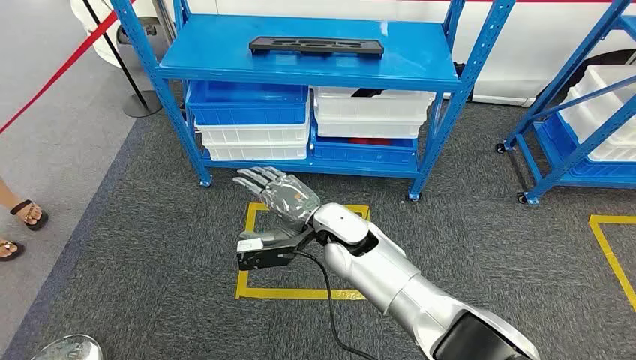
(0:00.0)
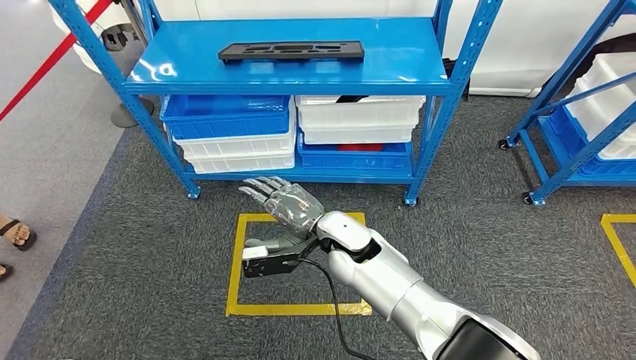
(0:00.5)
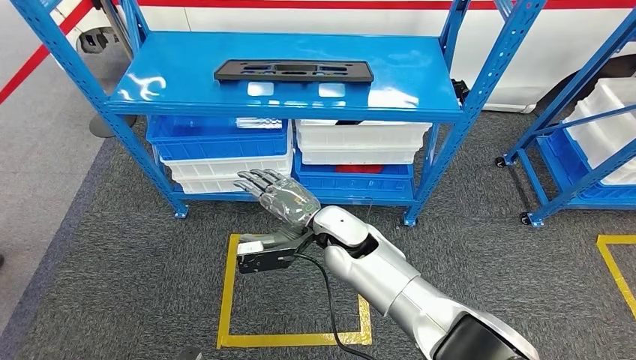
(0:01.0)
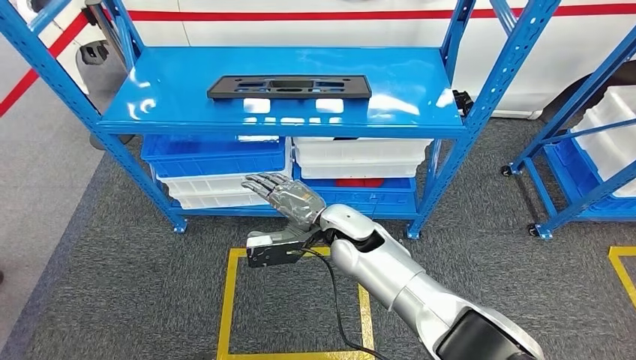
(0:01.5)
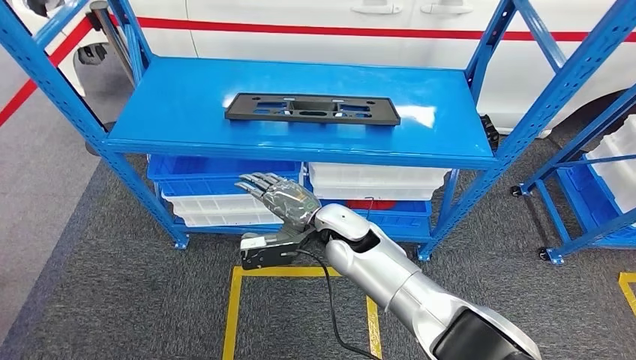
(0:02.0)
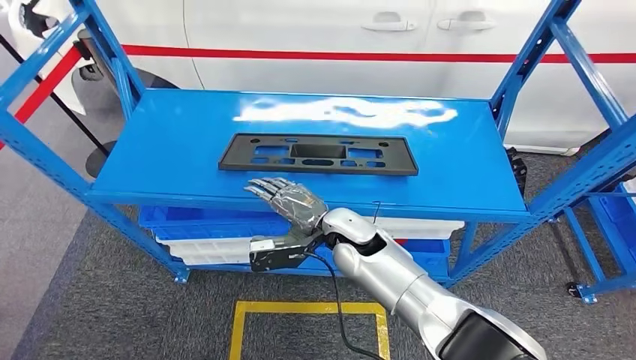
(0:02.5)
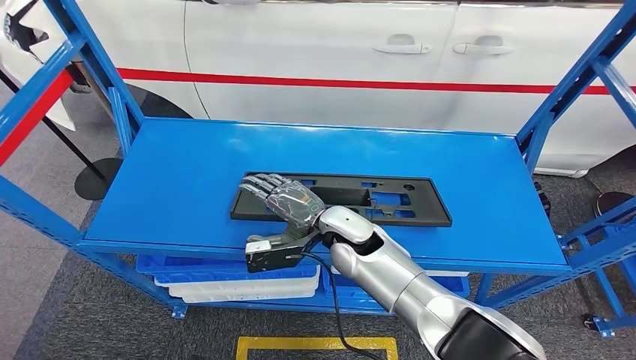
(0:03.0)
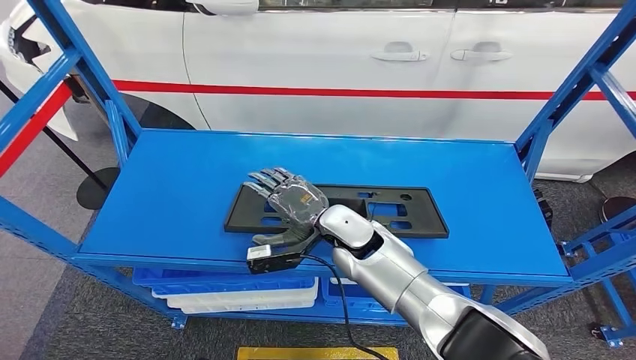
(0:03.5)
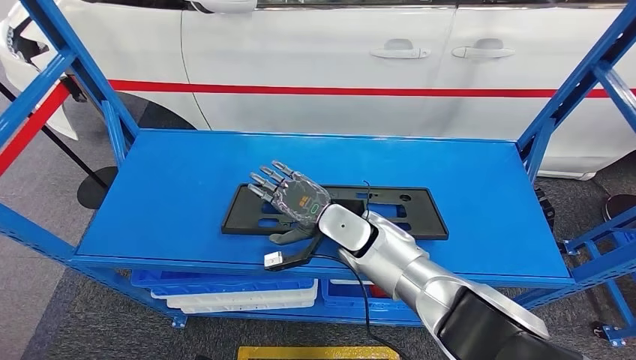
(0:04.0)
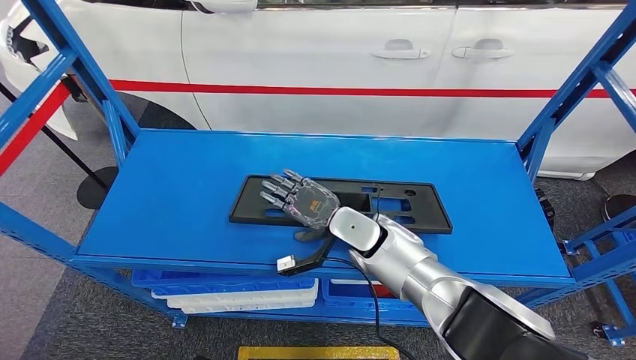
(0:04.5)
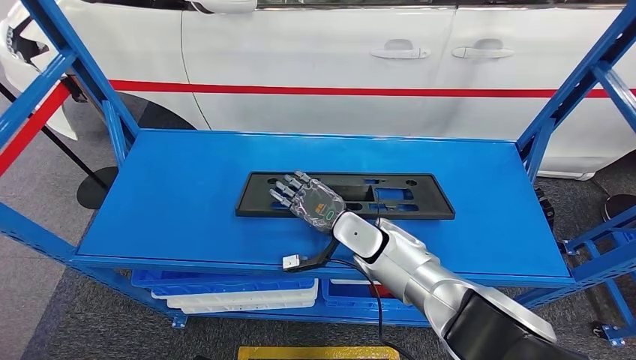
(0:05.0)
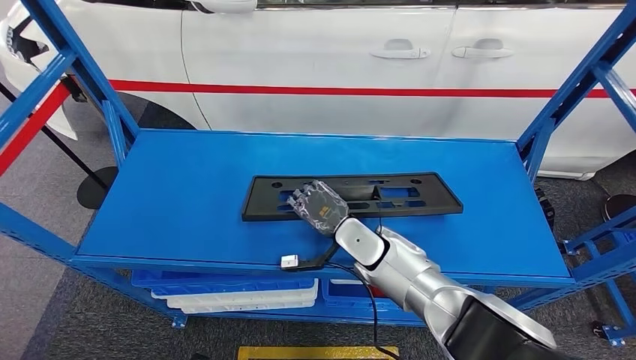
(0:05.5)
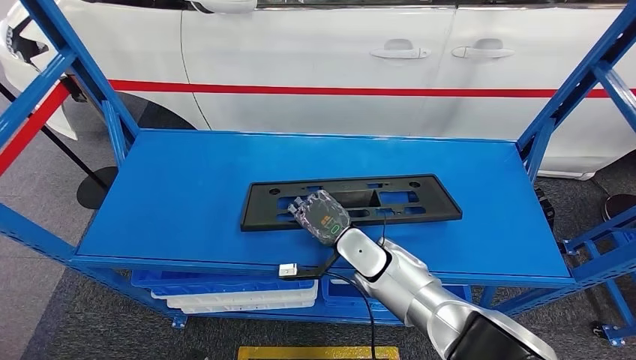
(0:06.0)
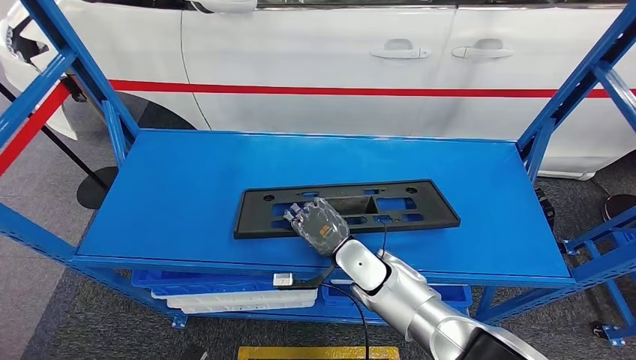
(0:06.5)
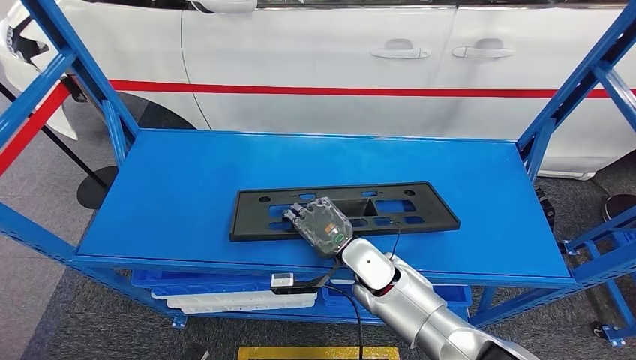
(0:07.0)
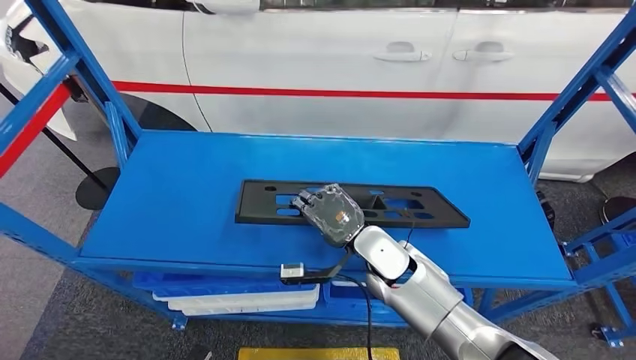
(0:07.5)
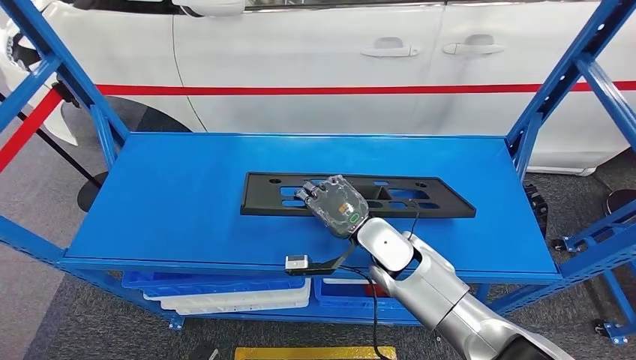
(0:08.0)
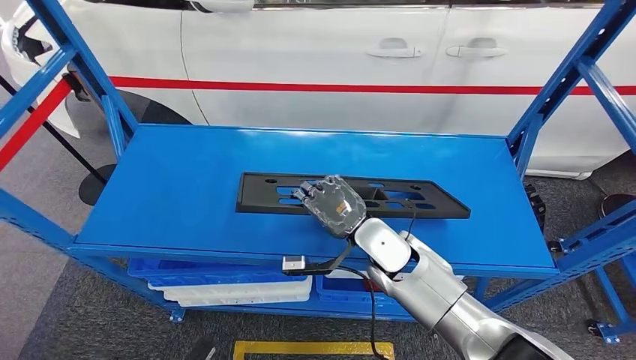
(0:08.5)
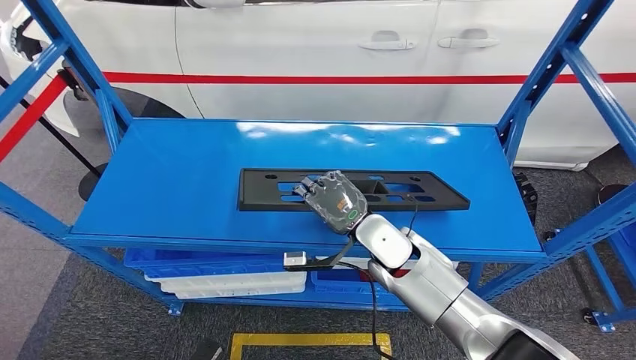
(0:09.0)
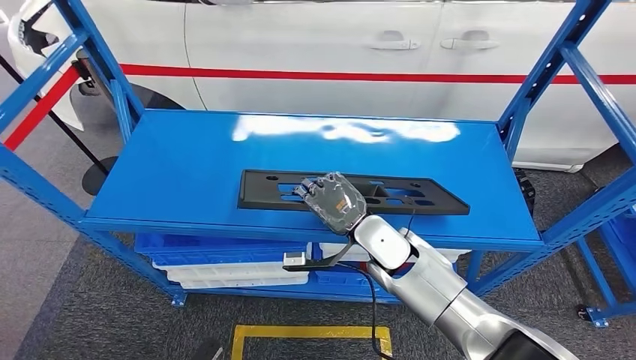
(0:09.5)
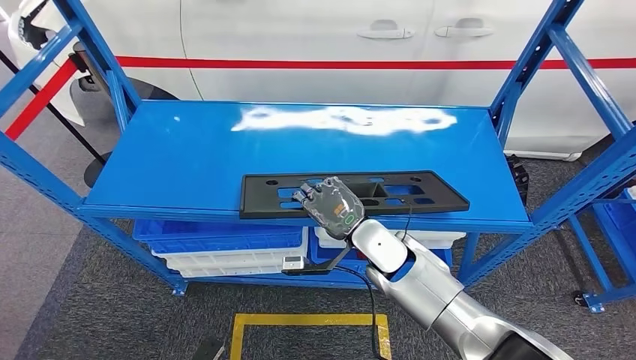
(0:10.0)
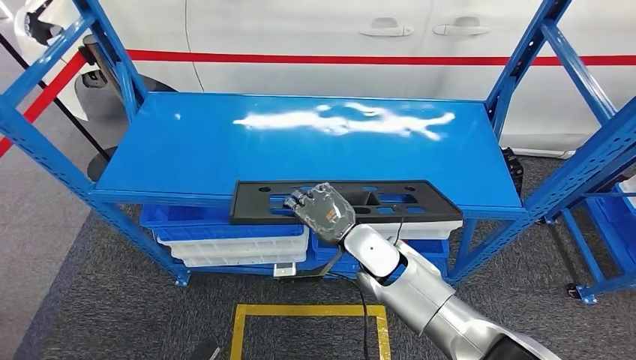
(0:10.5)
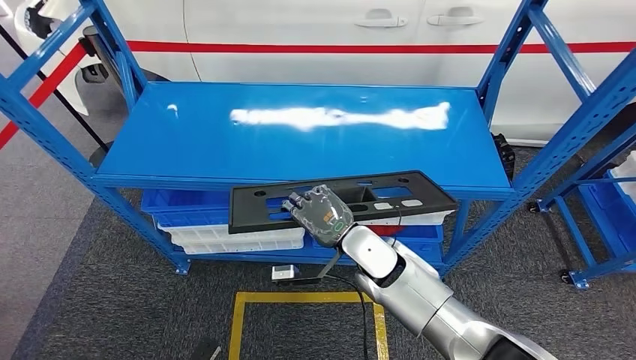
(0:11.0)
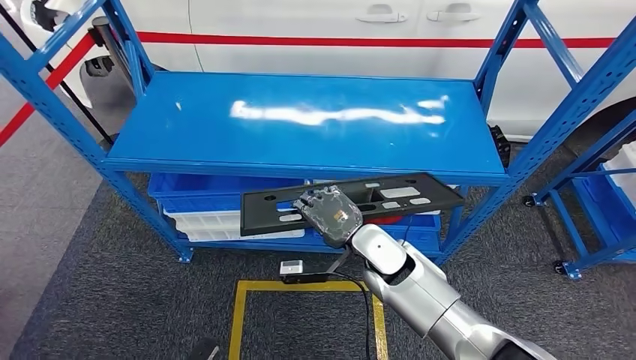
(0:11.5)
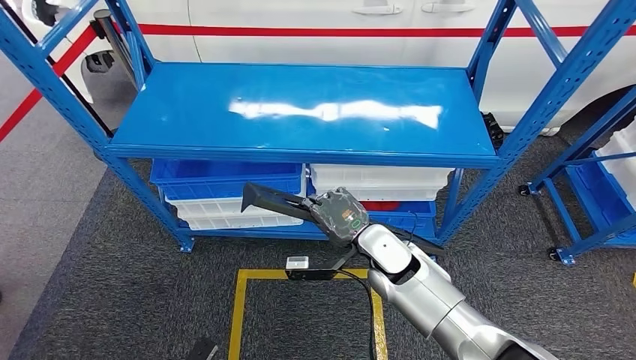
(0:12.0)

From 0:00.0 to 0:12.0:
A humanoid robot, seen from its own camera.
Step, from 0:00.0 to 0:08.0: Pick up the large material from the shelf.
From 0:04.0 to 0:06.0: The right hand heads downward, covering about 5 cm.

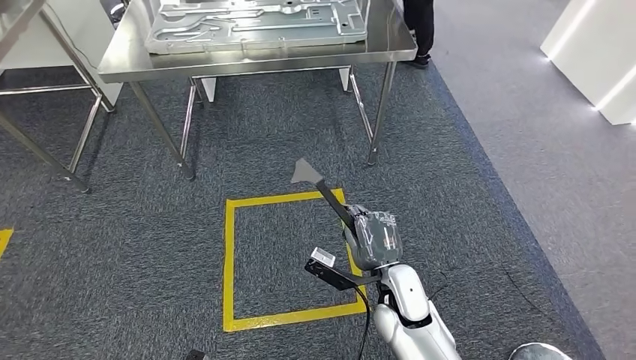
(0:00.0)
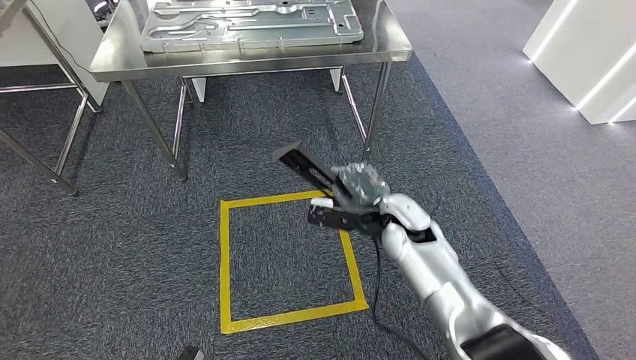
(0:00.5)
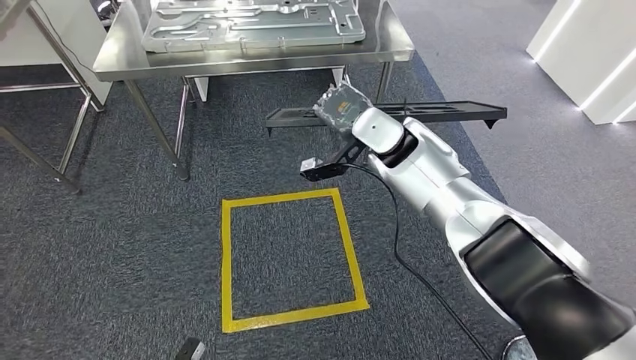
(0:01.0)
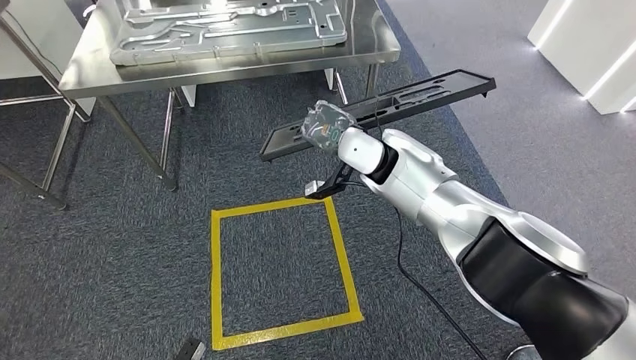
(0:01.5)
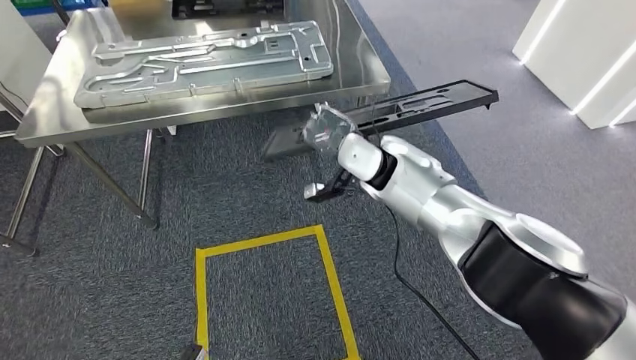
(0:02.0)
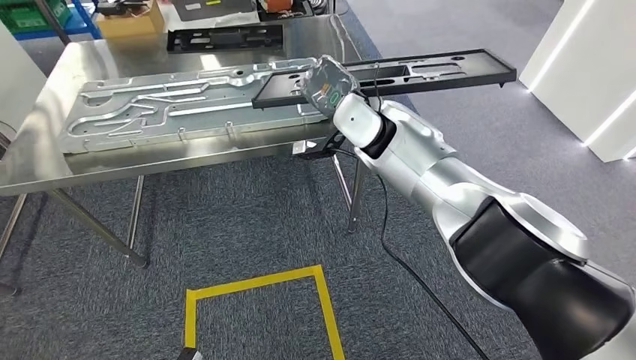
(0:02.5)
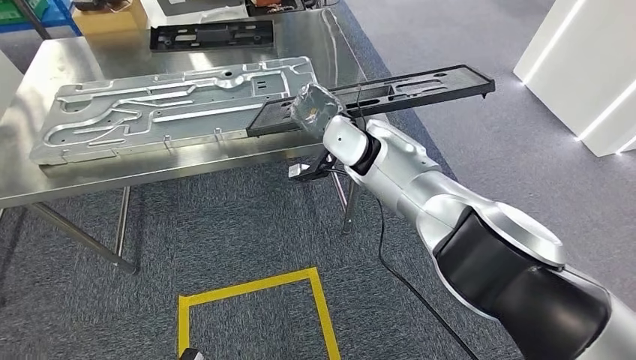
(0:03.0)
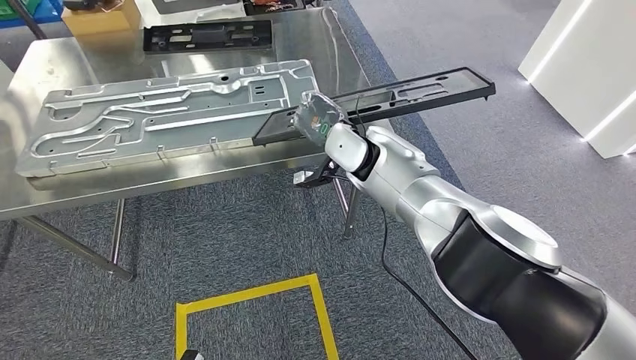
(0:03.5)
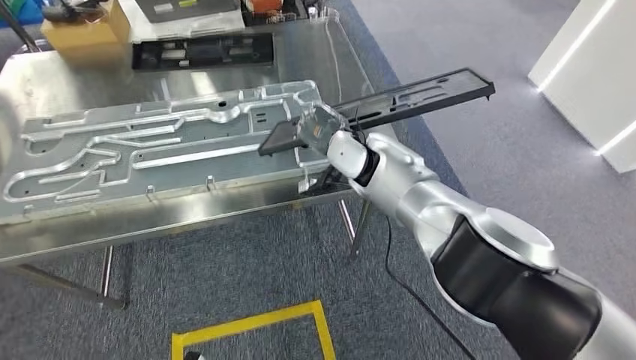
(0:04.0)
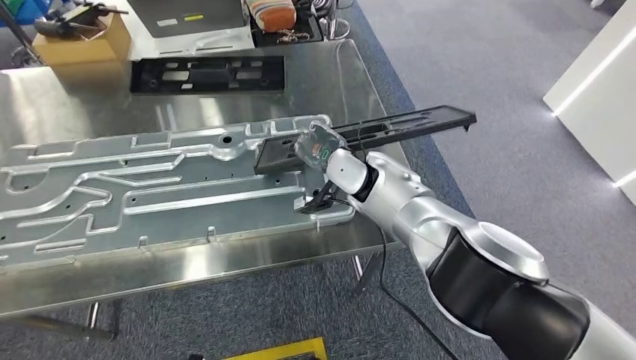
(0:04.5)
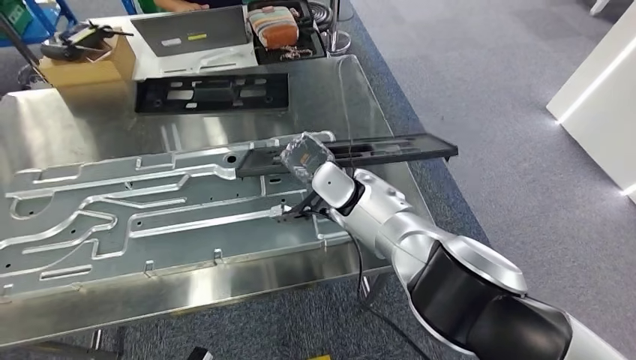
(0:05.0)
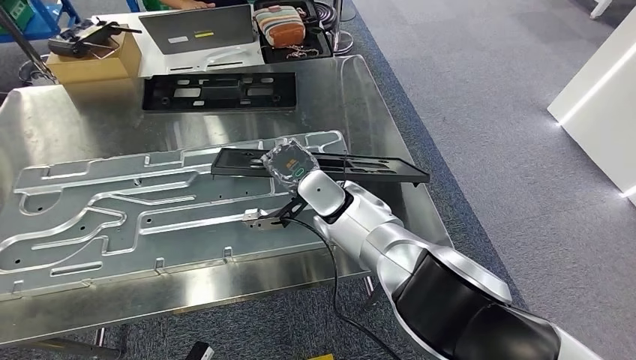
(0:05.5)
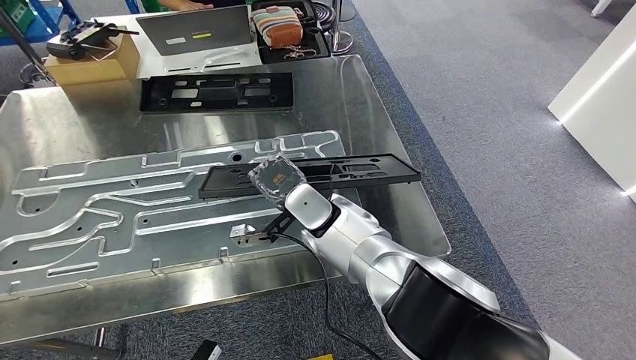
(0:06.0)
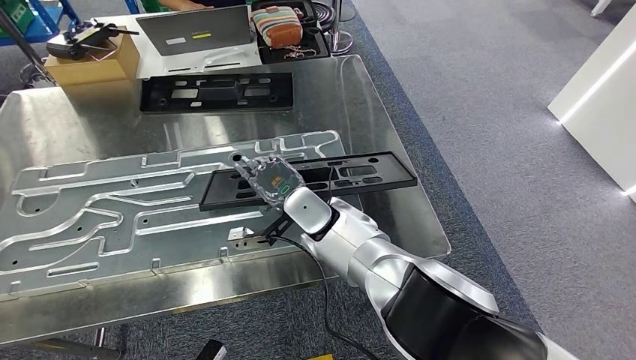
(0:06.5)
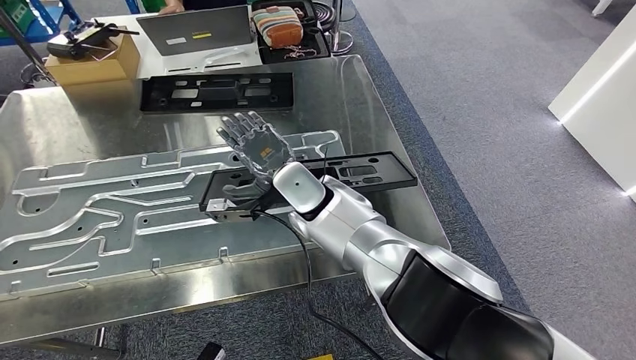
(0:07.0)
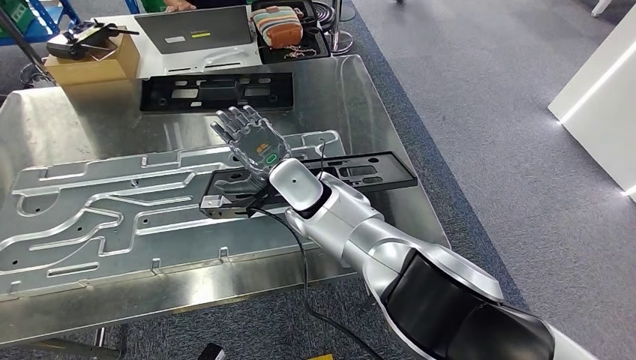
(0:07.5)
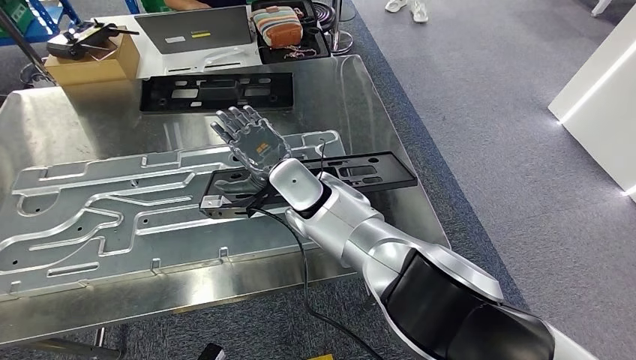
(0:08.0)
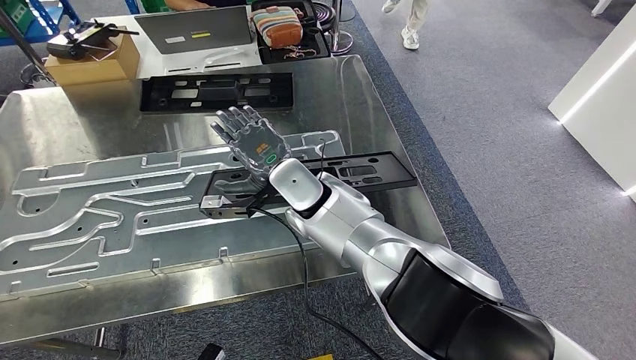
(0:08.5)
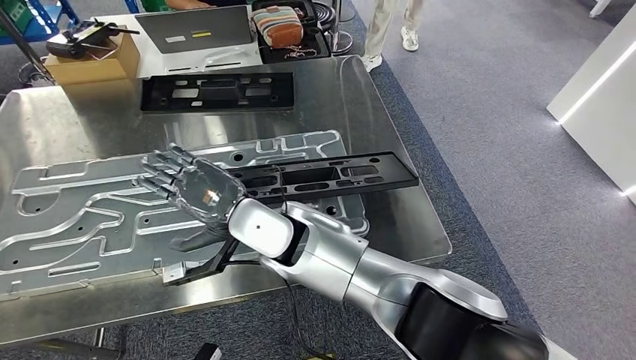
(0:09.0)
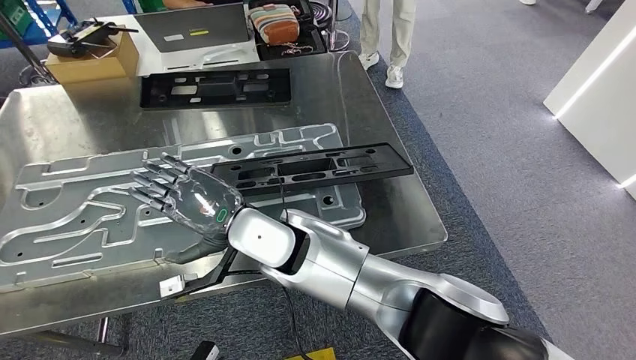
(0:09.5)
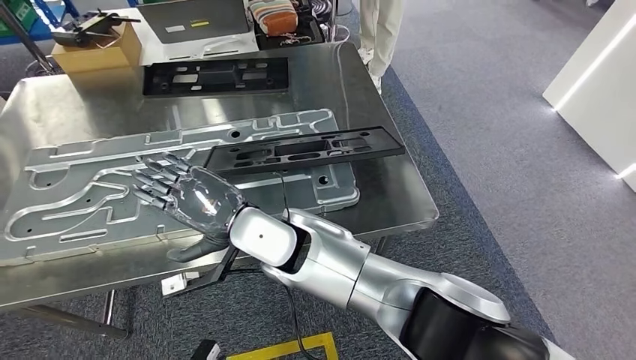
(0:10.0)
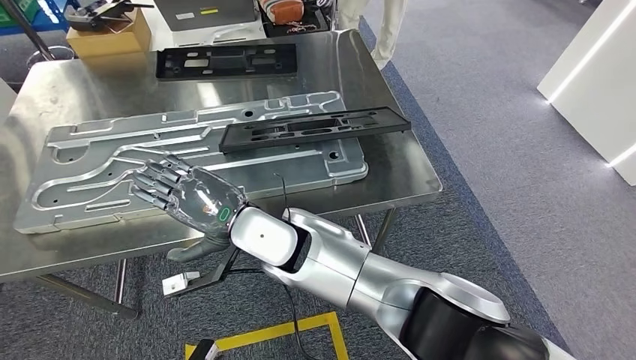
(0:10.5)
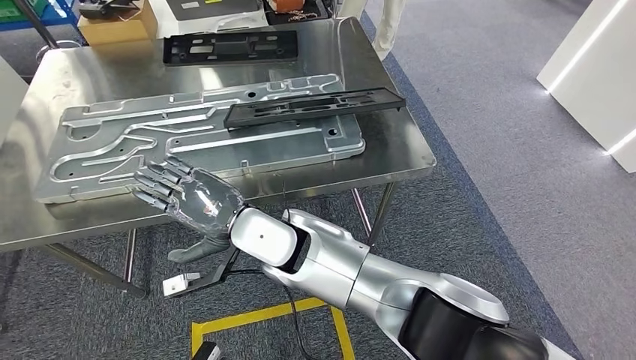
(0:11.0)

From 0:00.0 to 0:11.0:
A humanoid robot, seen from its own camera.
Step, from 0:00.0 to 0:03.0: Move the large material to the workbench.
Step, from 0:05.5 to 0:10.0: Insert the large material into the corresponding slot on the workbench.
From 0:05.5 to 0:07.5: The right hand ends up roughly 5 cm from where it was.
From 0:07.5 to 0:09.0: The right hand heads backward, covering approximately 10 cm.
